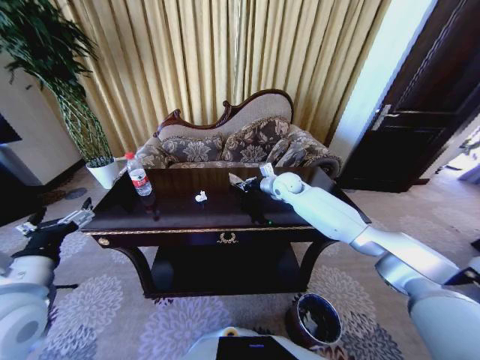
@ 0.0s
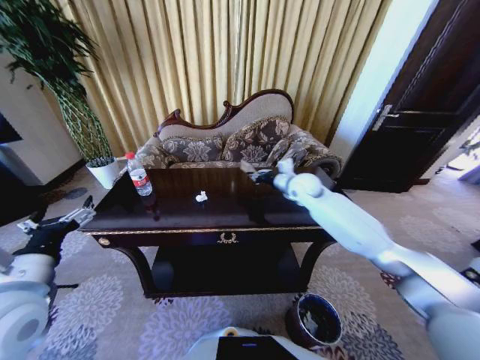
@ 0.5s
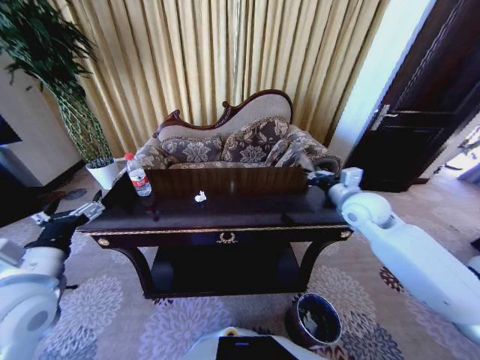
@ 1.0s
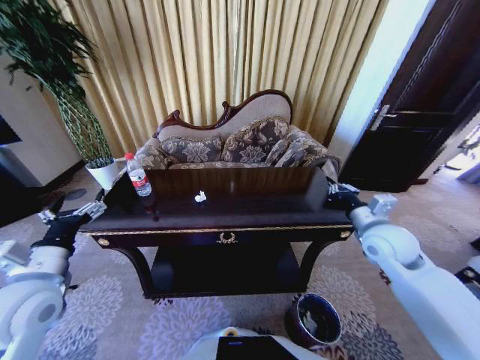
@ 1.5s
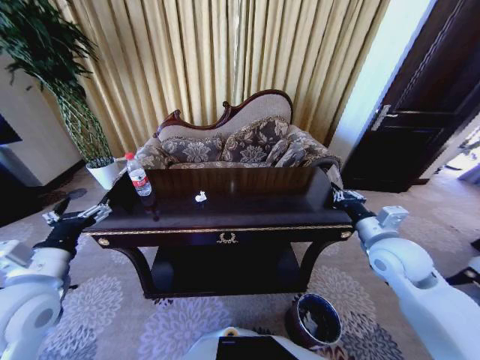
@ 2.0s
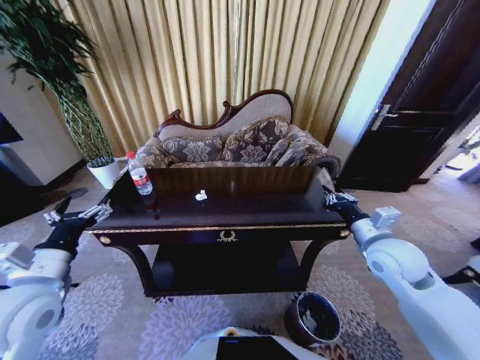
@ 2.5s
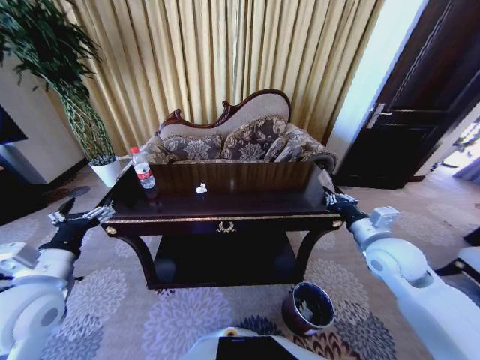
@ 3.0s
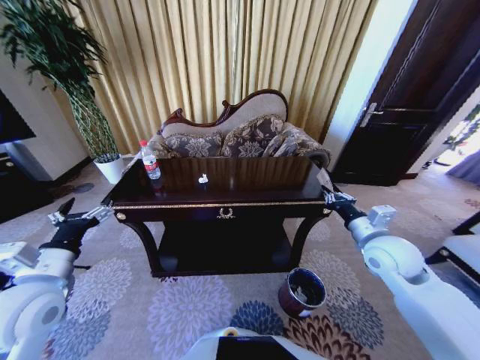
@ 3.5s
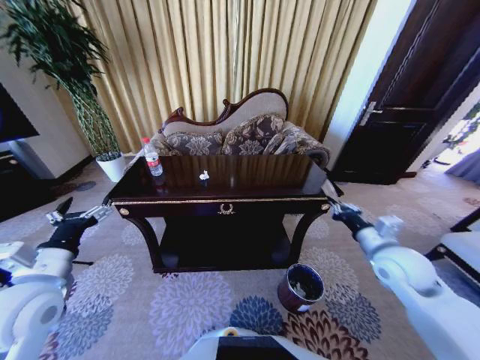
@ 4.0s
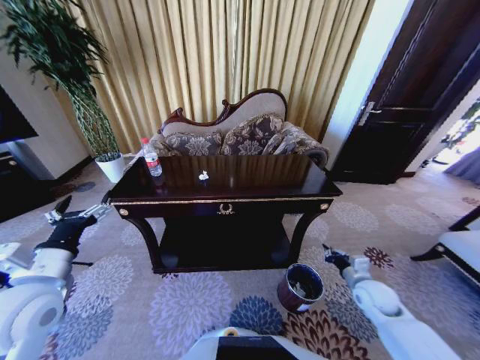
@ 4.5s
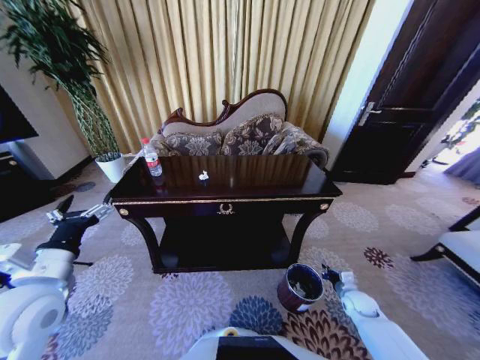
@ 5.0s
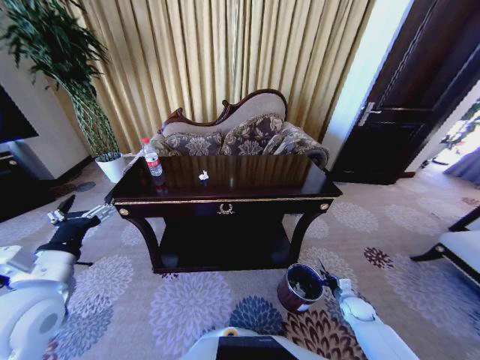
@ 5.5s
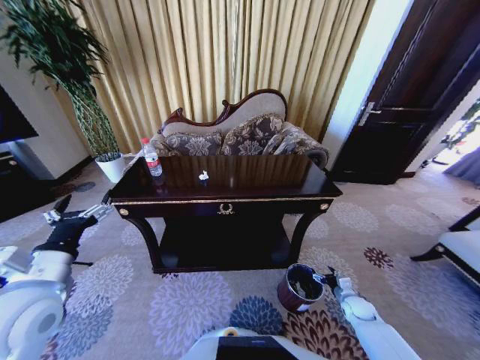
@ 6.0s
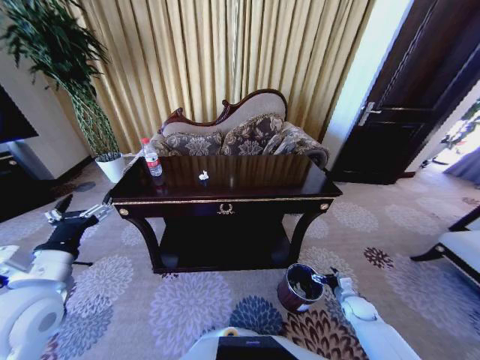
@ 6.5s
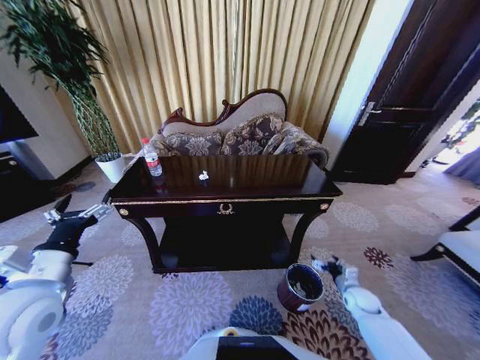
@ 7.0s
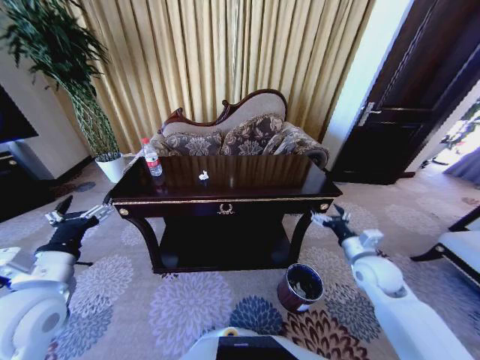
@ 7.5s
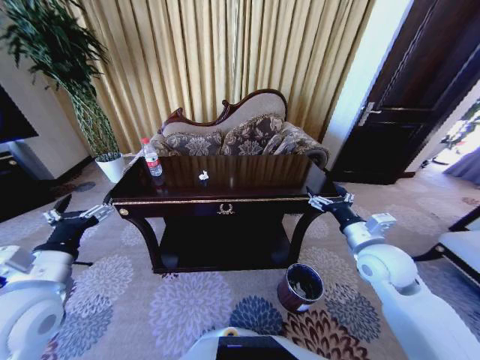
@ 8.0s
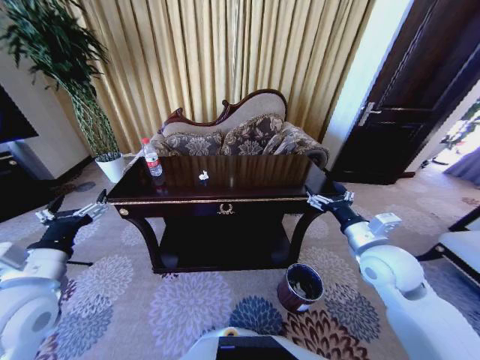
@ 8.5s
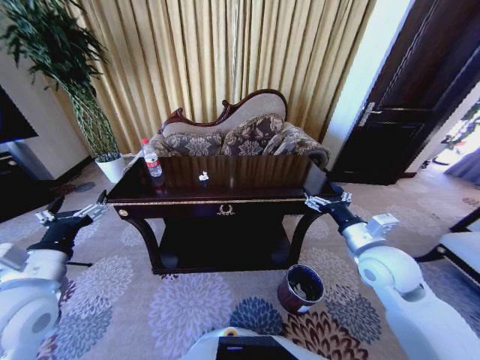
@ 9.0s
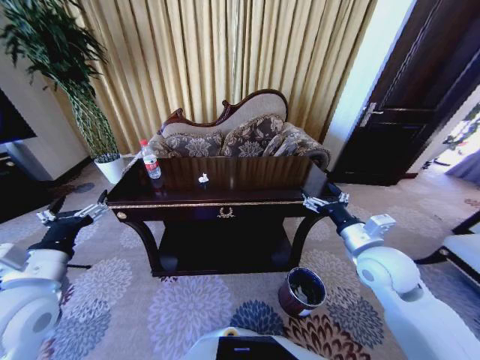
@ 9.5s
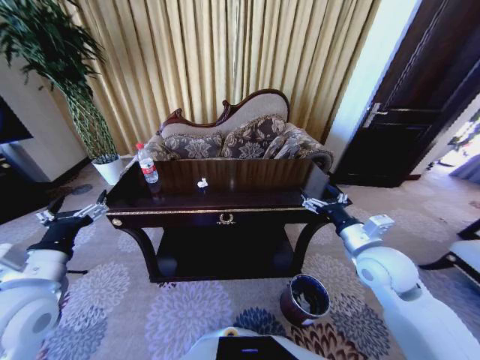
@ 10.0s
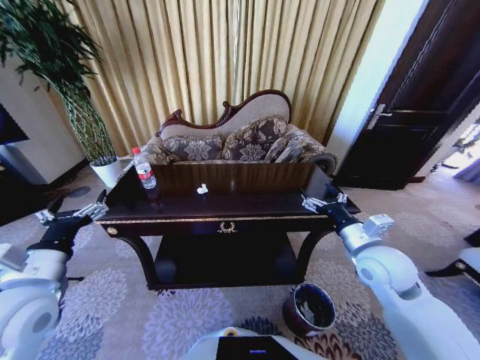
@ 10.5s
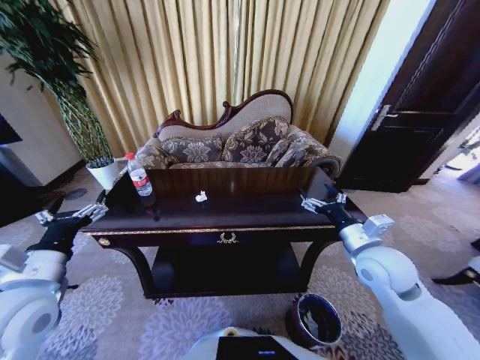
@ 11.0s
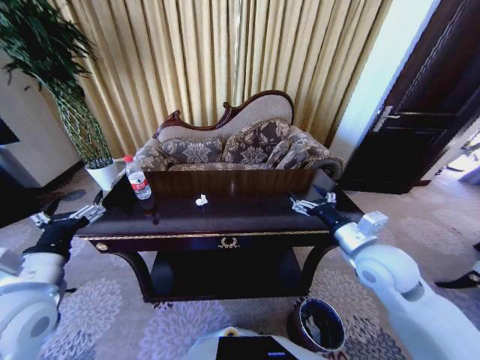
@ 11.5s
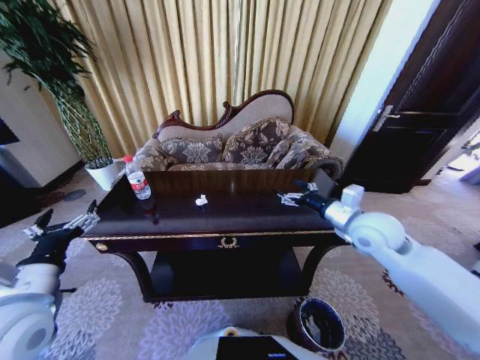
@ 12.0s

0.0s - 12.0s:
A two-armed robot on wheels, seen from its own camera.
Task of the whole recording: Move to the front of the table and place the trash on the table into the trash bin.
0.0s - 2.0s: The right gripper shifts approximately 35 cm backward and to the right.
4.0s - 6.0s: The right gripper is displaced downward by approximately 35 cm, and opens up.
6.0s - 8.0s: The right gripper shifts some 35 cm upward, and opens.
10.0s - 12.0s: The right gripper moves forward, approximately 5 cm.

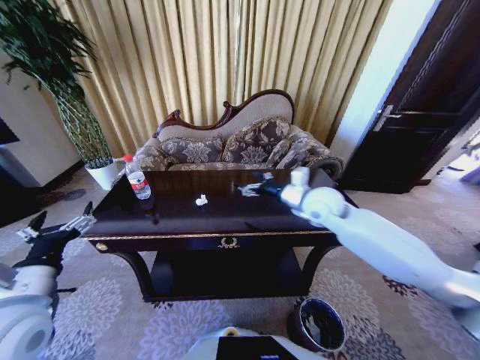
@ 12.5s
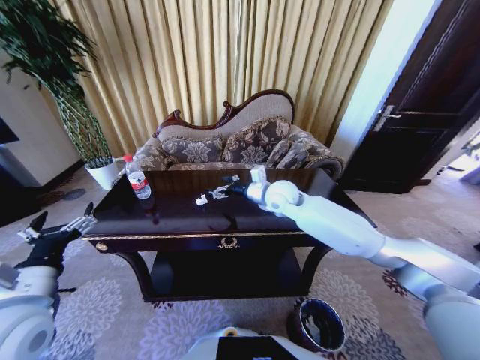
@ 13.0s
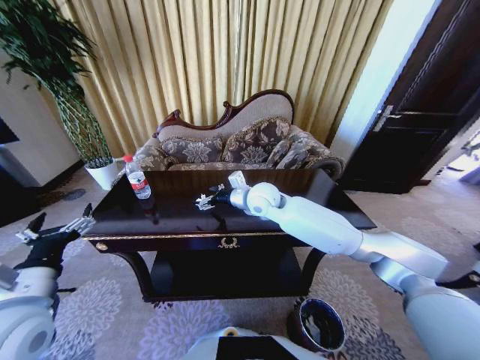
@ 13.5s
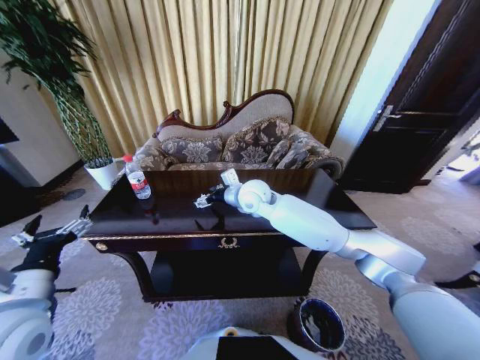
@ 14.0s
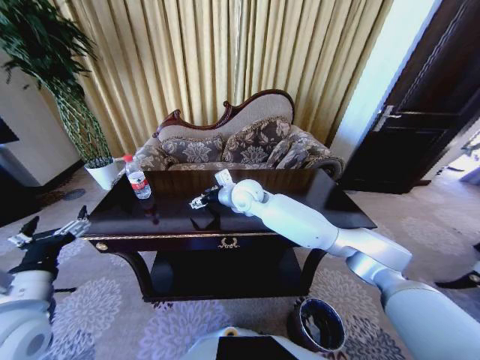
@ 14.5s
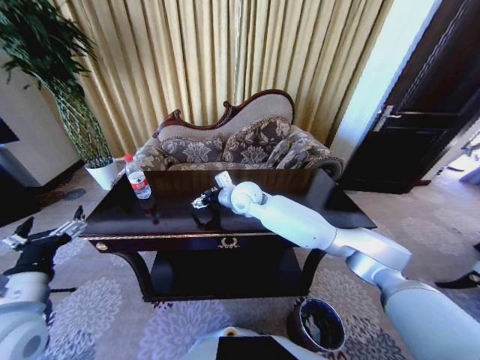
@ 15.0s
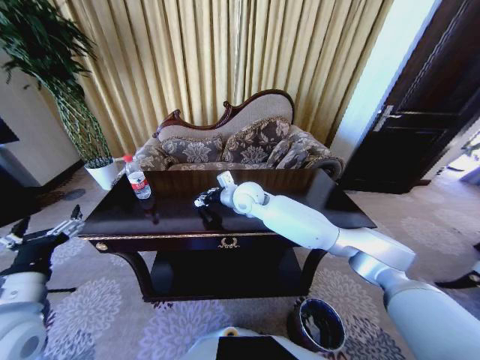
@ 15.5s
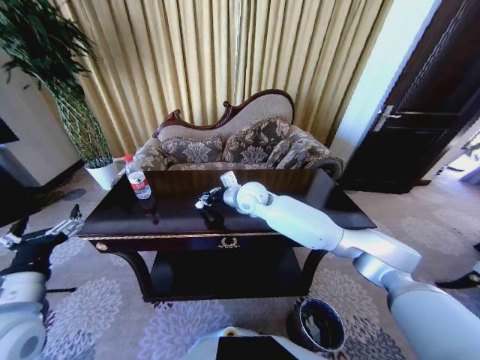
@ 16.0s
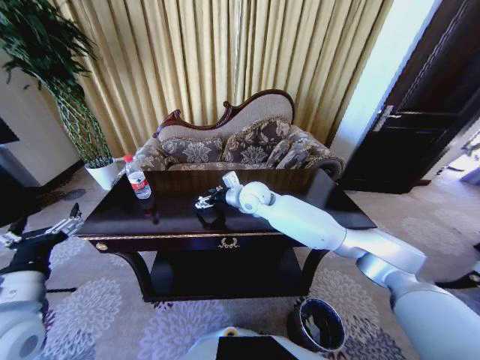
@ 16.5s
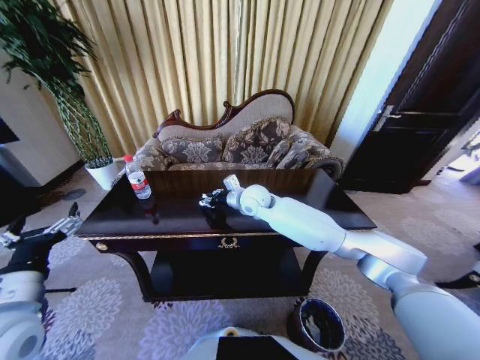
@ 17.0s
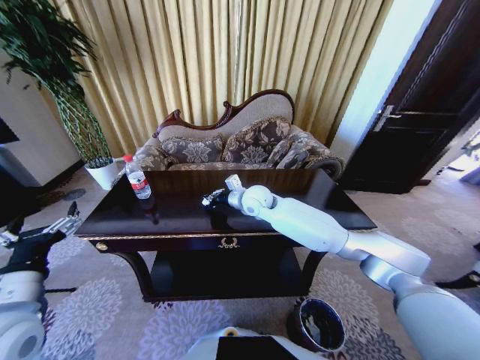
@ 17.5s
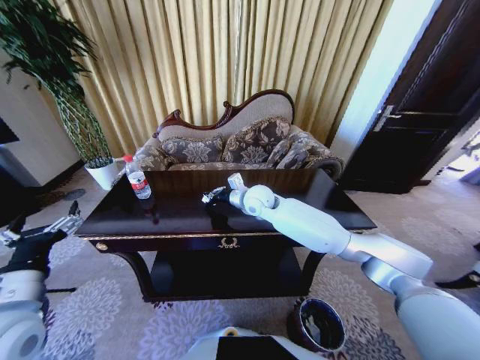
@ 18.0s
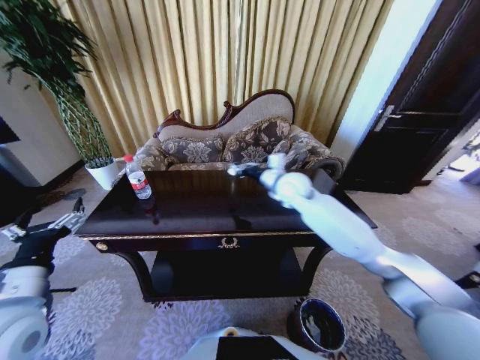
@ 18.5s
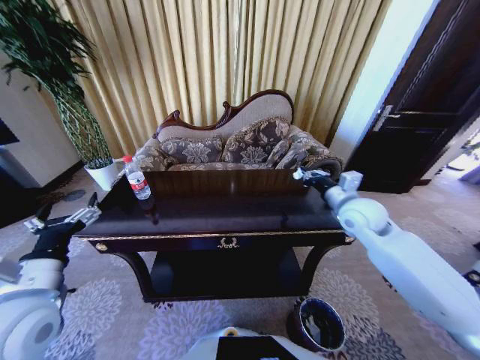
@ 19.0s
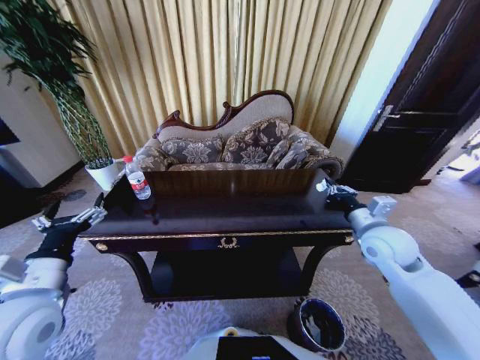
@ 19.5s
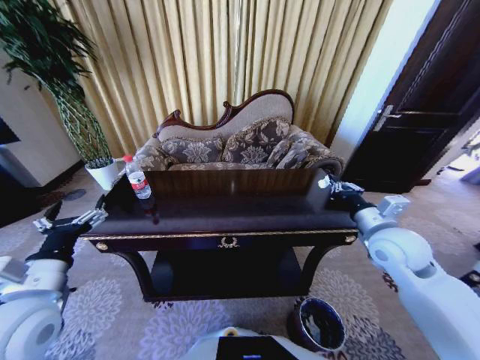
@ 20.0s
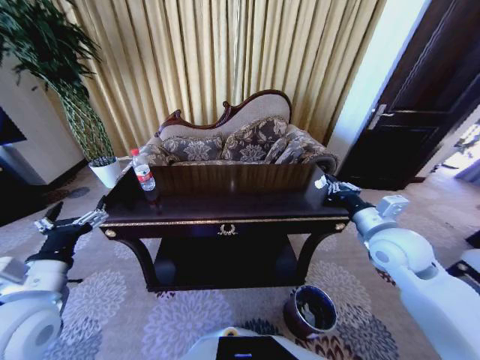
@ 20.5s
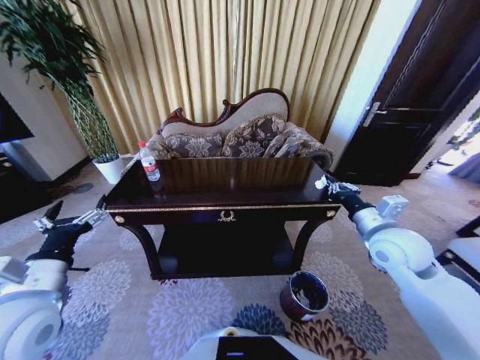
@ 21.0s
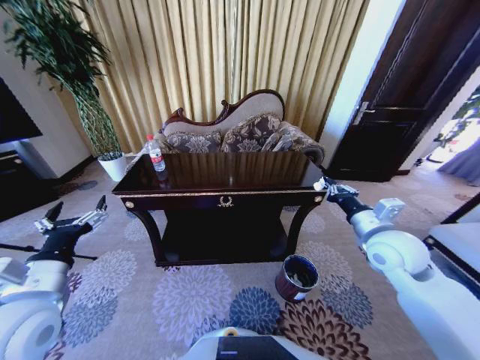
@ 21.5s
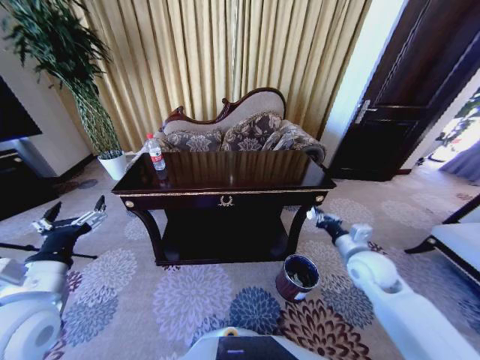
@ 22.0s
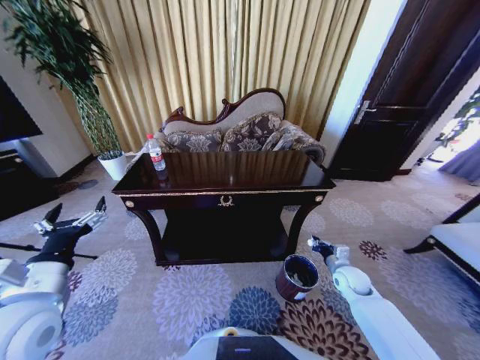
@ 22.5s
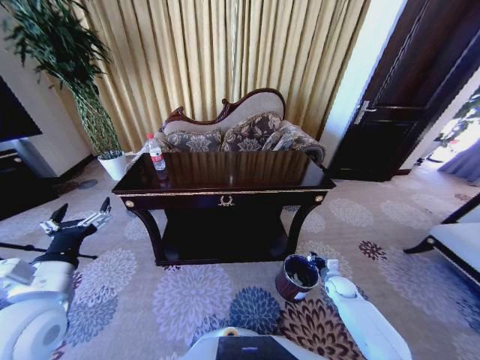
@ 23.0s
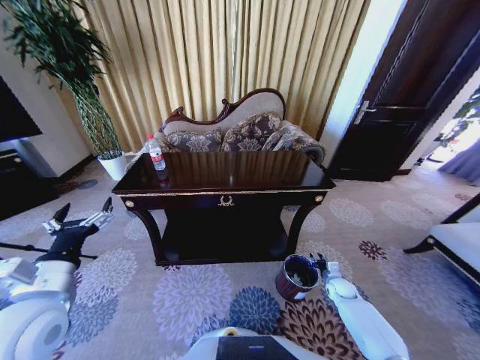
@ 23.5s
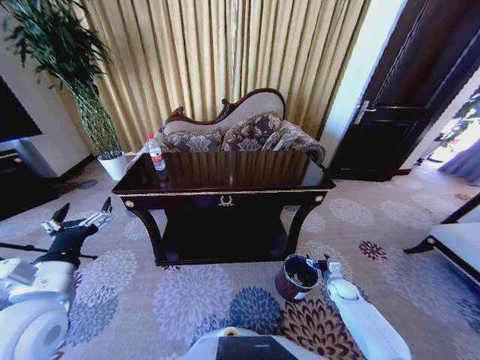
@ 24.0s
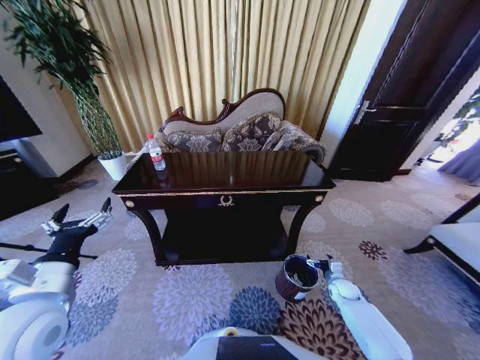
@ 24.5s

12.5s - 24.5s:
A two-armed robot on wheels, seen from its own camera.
Task of the whole recording: Move to the front of the table and place the trash on the table into the trash bin.
12.5s - 14.5s: The right gripper heads to the left, covering roughly 20 cm.
14.5s - 16.5s: The right gripper closes, then reopens.
16.5s - 18.5s: The right gripper heads to the right, covering about 10 cm, and closes up.
18.5s - 20.5s: The right gripper moves backward and to the right, approximately 25 cm.
20.5s - 22.5s: The right gripper shifts approximately 25 cm downward.
22.5s - 24.5s: The right gripper is displaced downward by approximately 10 cm, and opens up.

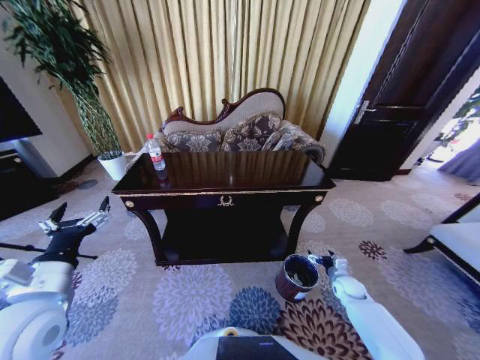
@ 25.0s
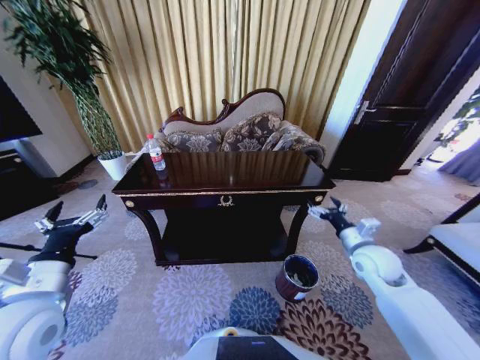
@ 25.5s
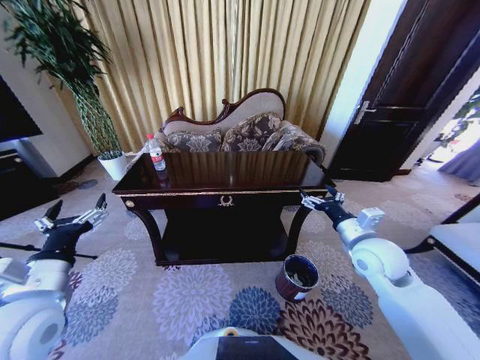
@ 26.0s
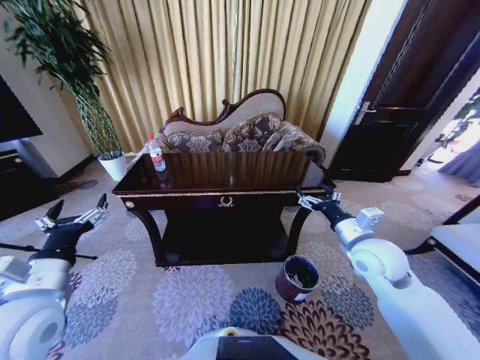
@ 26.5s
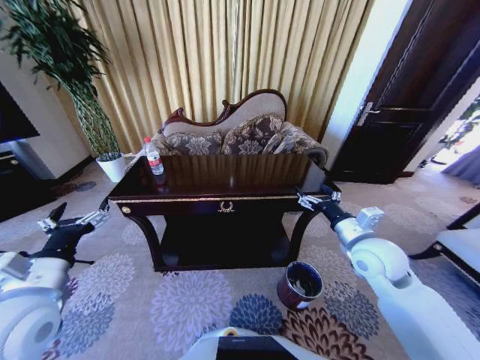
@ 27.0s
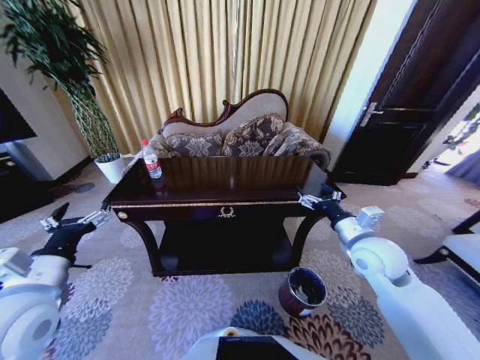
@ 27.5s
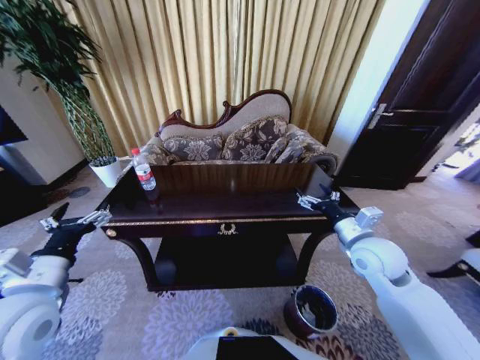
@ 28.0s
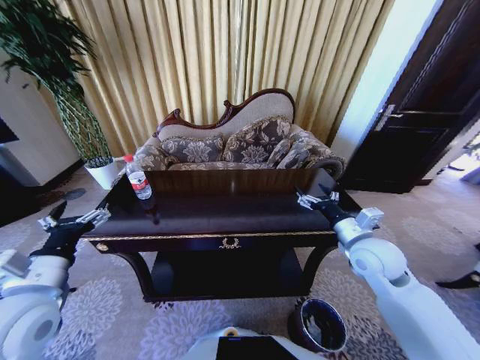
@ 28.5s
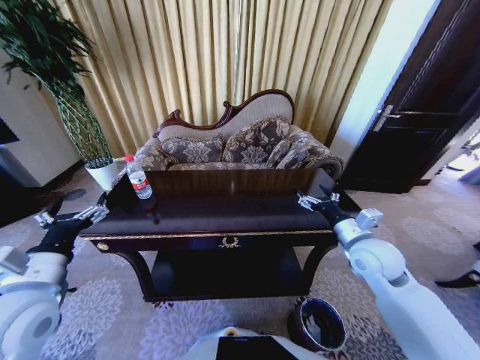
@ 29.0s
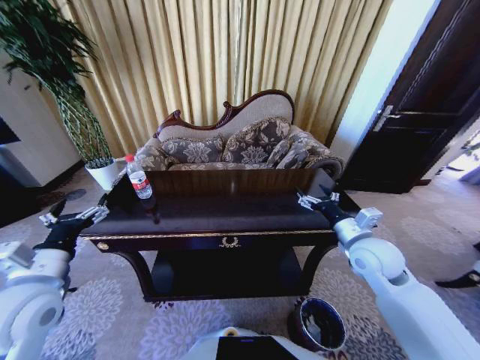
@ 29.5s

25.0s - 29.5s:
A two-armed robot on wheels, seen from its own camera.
Task of the whole recording: Move to the front of the table and place the trash on the table into the trash bin.
25.0s - 27.0s: The right gripper travels upward by some 30 cm.
